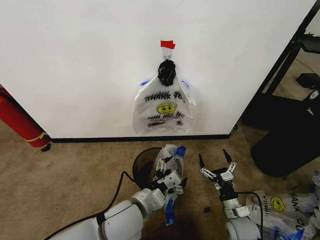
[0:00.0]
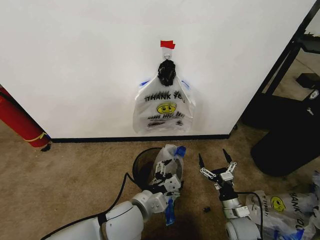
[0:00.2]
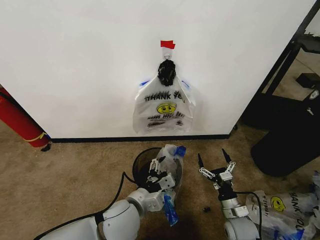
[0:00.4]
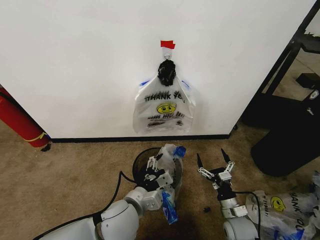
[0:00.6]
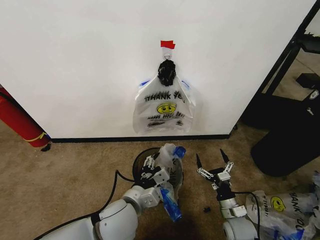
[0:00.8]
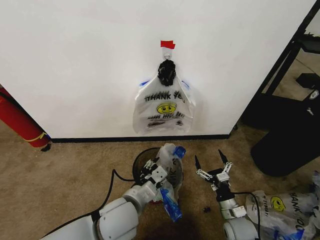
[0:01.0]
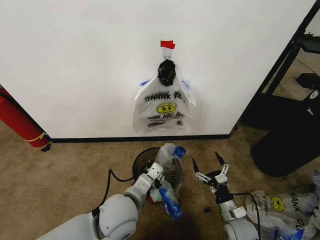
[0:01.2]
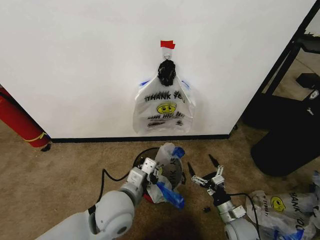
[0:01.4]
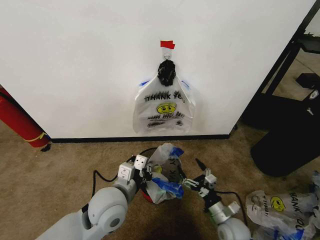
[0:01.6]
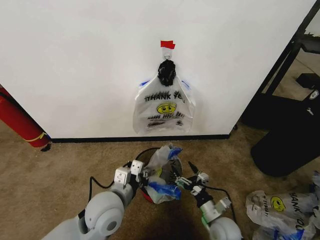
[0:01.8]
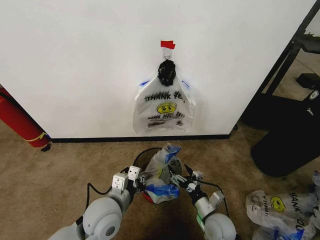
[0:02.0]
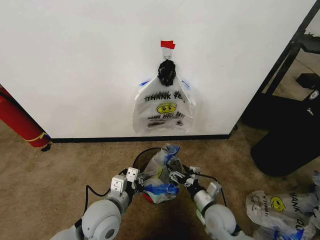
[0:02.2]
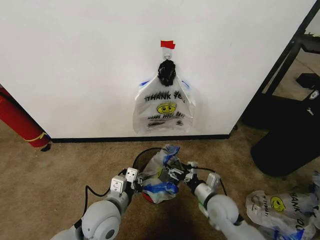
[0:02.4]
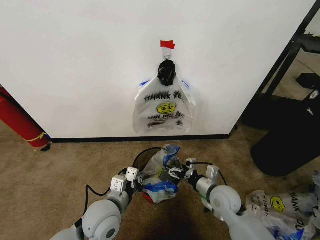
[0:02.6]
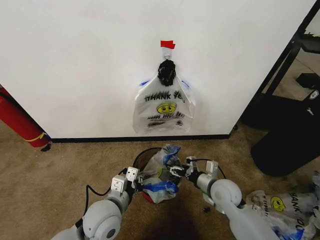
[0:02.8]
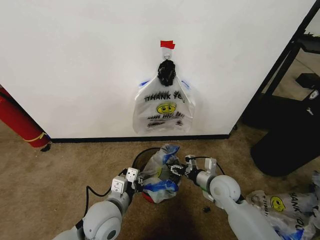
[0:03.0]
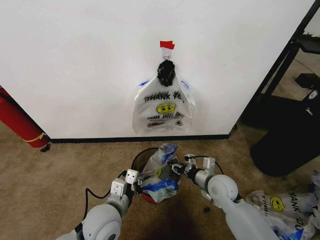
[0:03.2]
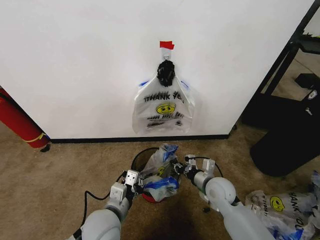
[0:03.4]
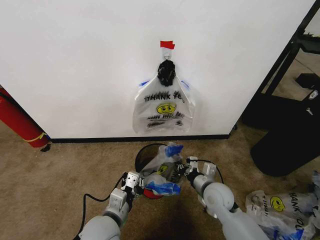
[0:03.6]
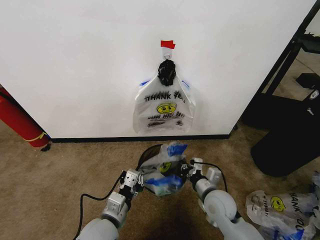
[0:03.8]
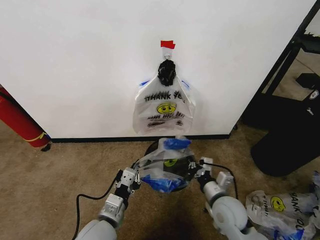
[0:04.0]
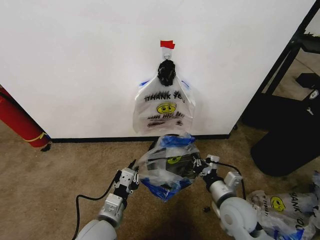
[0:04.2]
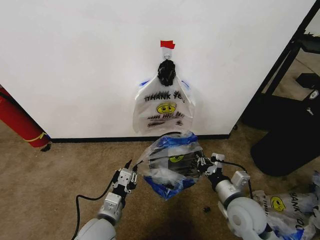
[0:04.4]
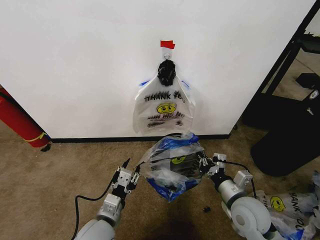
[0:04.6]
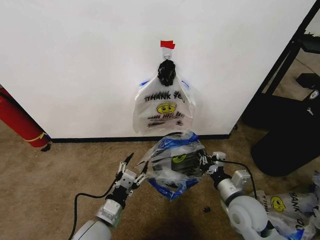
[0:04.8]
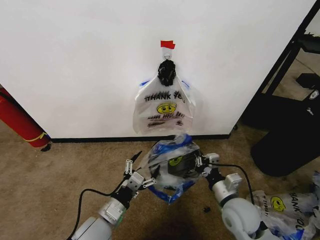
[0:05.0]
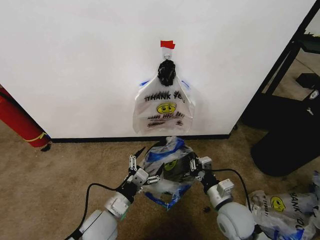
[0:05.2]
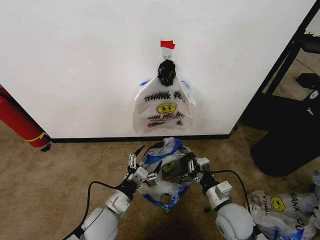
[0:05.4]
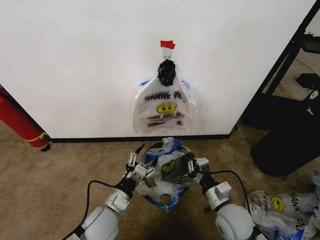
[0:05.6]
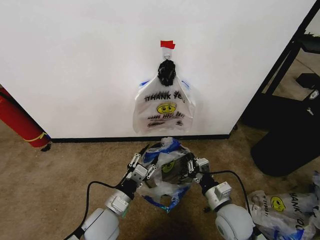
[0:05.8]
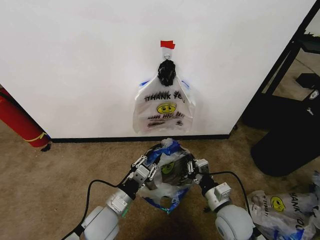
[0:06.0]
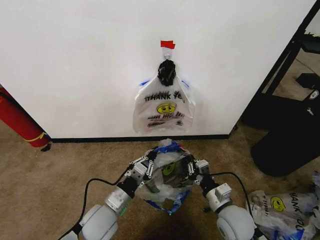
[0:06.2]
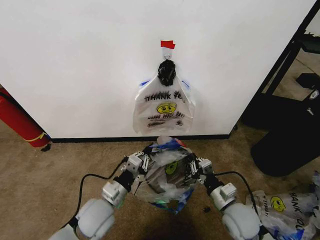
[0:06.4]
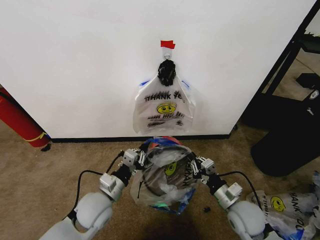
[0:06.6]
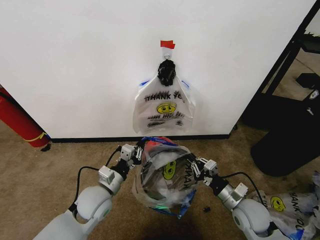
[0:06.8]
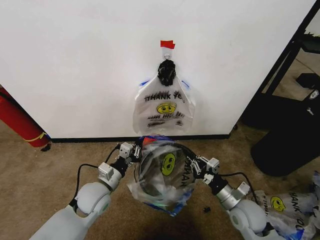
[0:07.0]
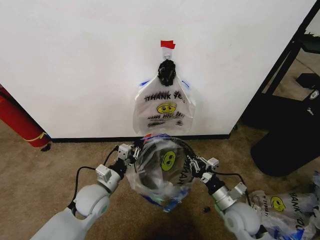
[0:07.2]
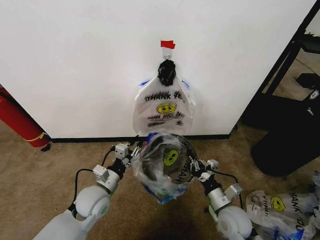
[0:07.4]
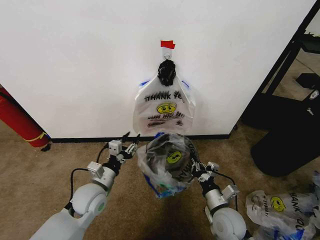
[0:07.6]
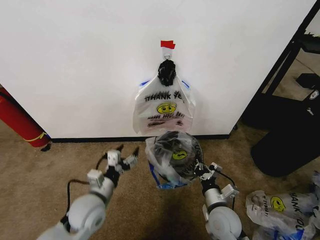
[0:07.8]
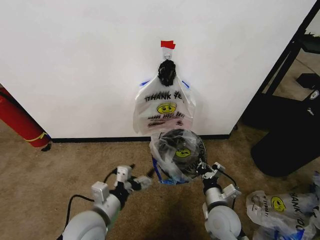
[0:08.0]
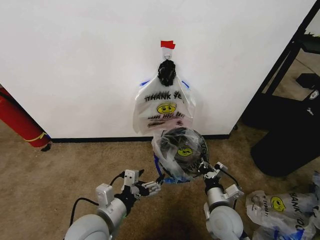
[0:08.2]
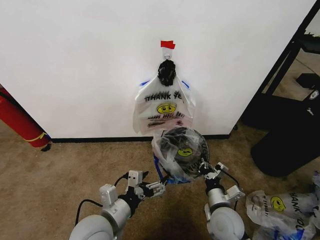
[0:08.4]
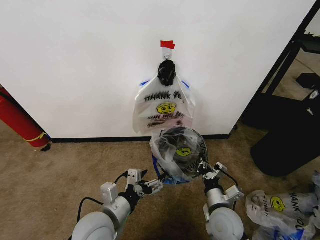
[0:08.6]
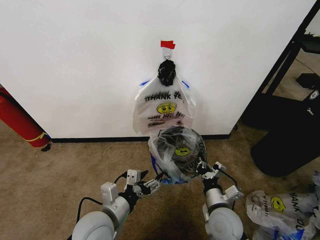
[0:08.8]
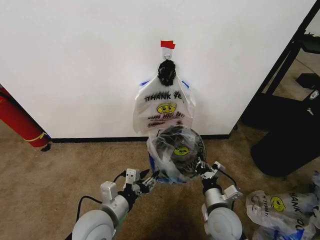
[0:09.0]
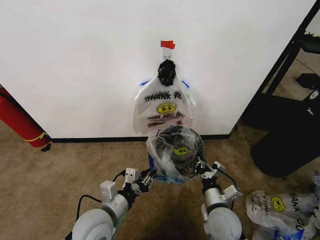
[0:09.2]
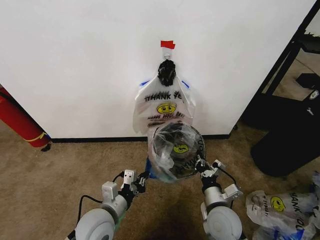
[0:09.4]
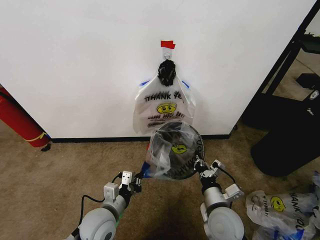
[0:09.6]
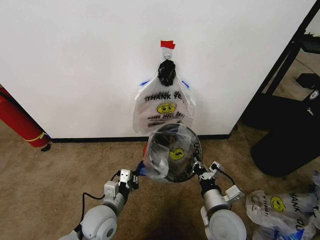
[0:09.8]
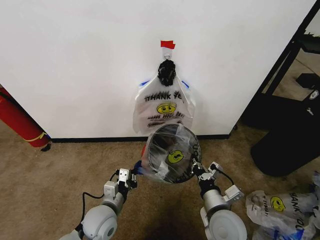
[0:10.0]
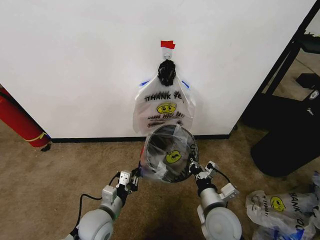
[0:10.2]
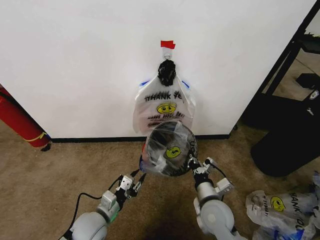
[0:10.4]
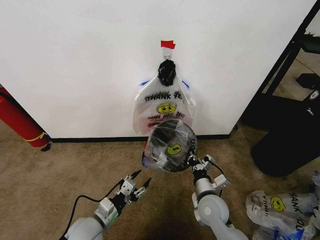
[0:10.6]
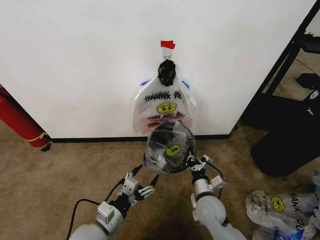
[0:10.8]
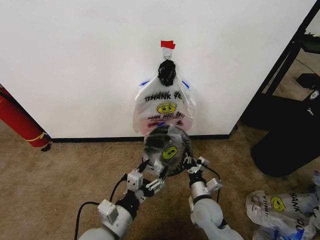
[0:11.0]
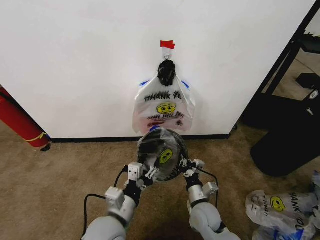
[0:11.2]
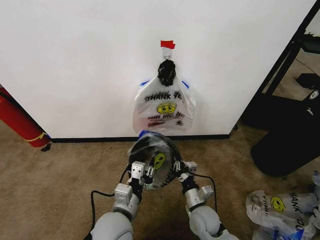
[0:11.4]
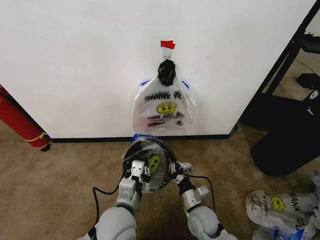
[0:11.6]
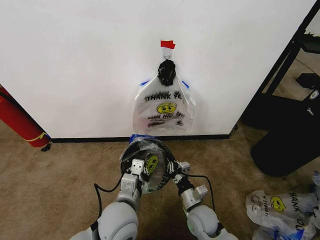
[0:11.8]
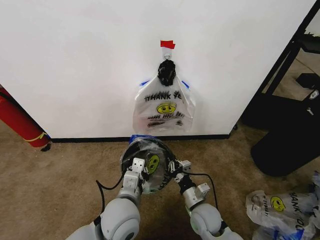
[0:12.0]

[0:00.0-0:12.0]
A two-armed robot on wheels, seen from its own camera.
Task of the whole recording: Pick up the garbage bag from the wall and place it over the trash bin.
0:00.0 to 0:01.6: The left gripper changes place by about 5 cm, and closes.
0:01.6 to 0:03.0: The right gripper travels upward and forward by approximately 15 cm, while the left gripper moves roughly 5 cm.
0:03.0 to 0:04.4: The right gripper travels backward by roughly 10 cm, and closes.
0:04.4 to 0:06.0: The left gripper opens, then closes once more.
0:06.0 to 0:07.6: The left gripper is displaced forward by about 5 cm.
0:07.6 to 0:09.0: The left gripper heads backward and to the right, covering some 10 cm, and opens and closes again.
0:09.0 to 0:10.4: The left gripper shifts about 10 cm downward, and closes and opens again.
0:10.4 to 0:12.0: The right gripper shifts some 5 cm downward. Meanwhile the left gripper shifts approximately 15 cm to the right and upward, and closes its fingers.

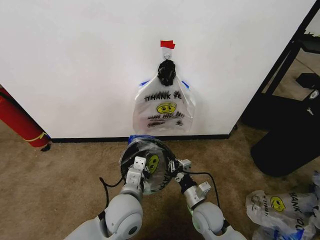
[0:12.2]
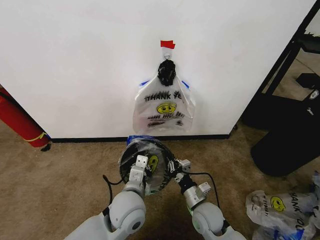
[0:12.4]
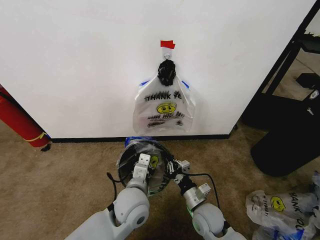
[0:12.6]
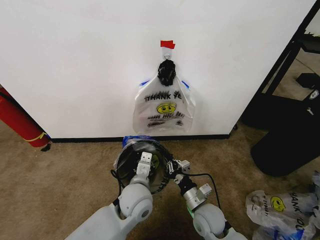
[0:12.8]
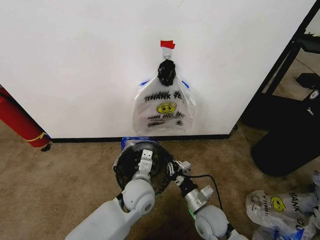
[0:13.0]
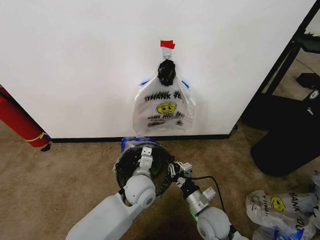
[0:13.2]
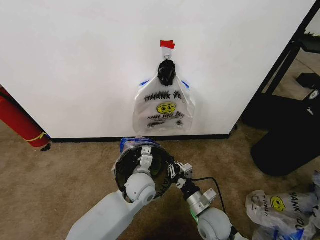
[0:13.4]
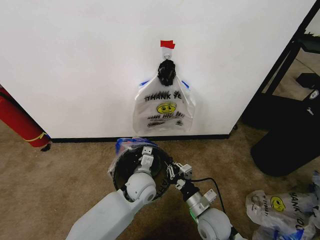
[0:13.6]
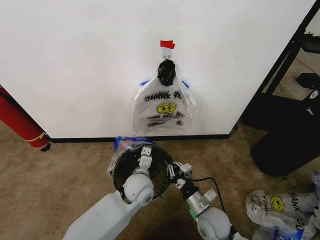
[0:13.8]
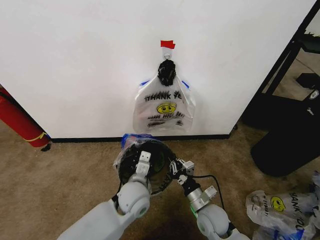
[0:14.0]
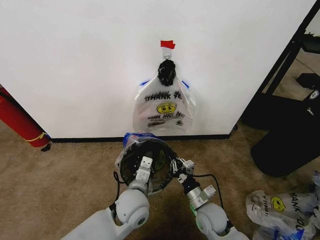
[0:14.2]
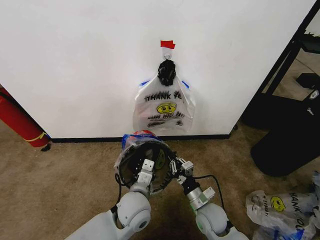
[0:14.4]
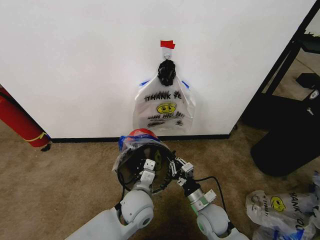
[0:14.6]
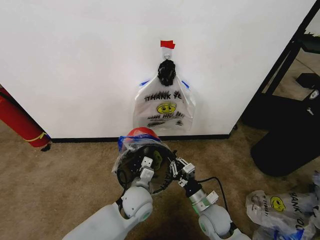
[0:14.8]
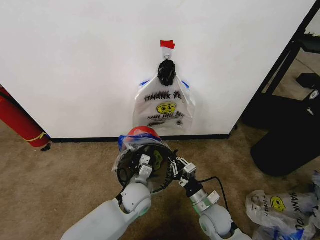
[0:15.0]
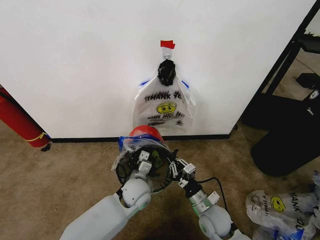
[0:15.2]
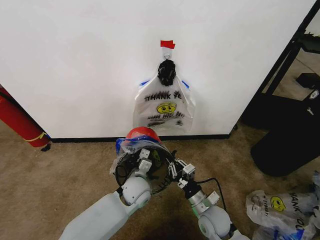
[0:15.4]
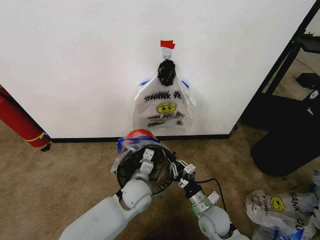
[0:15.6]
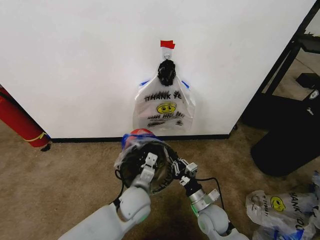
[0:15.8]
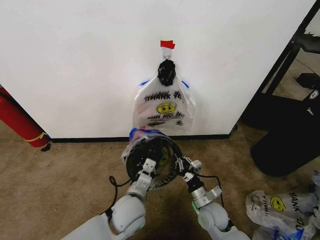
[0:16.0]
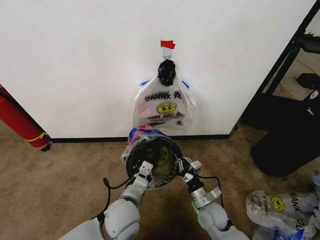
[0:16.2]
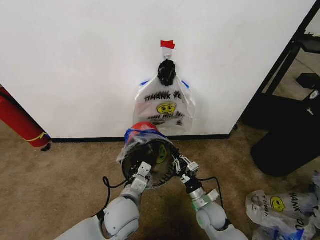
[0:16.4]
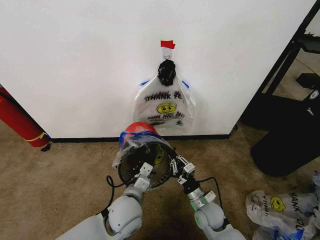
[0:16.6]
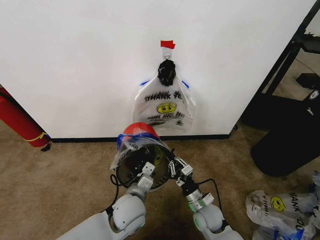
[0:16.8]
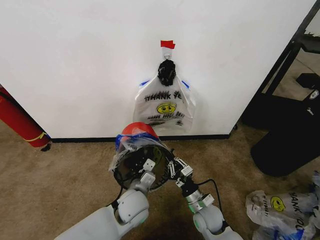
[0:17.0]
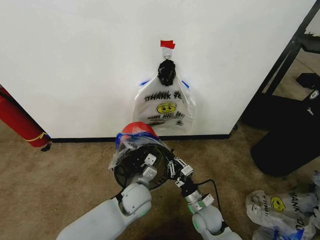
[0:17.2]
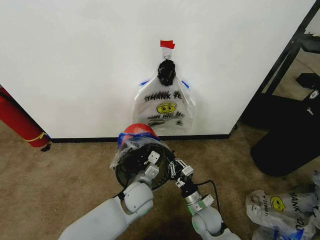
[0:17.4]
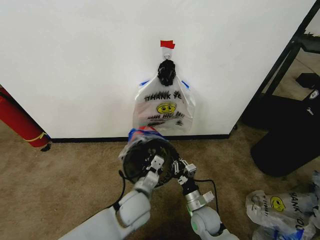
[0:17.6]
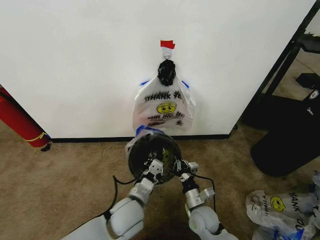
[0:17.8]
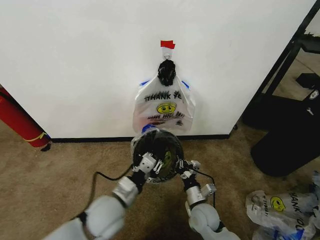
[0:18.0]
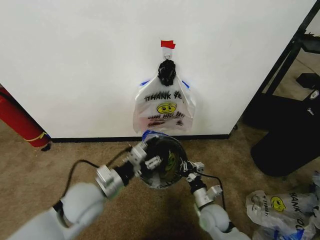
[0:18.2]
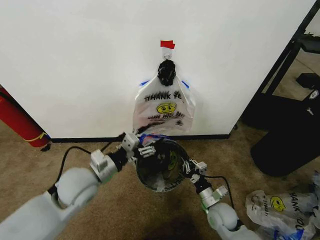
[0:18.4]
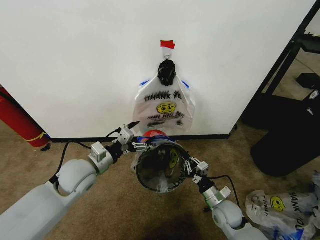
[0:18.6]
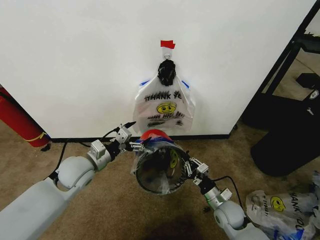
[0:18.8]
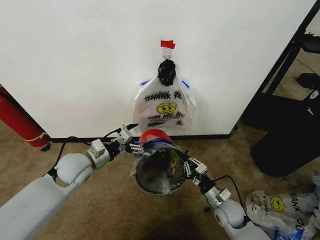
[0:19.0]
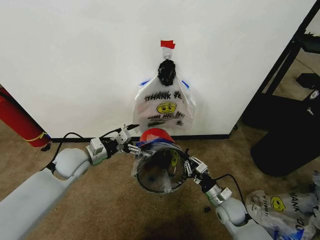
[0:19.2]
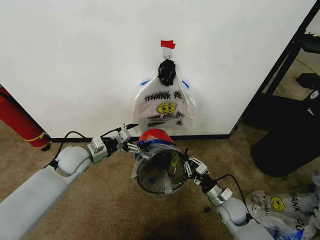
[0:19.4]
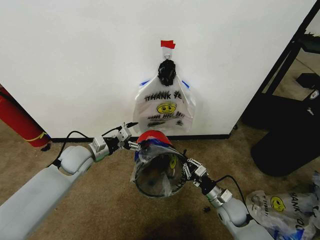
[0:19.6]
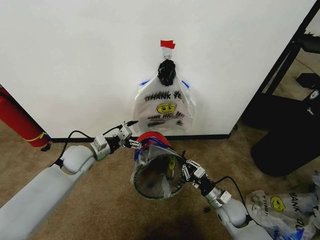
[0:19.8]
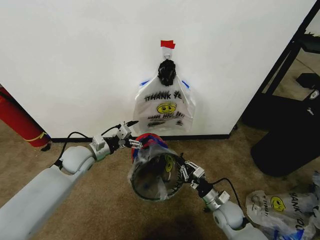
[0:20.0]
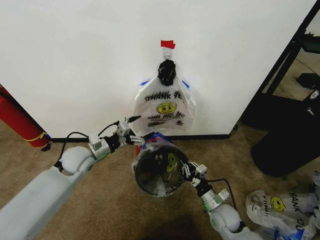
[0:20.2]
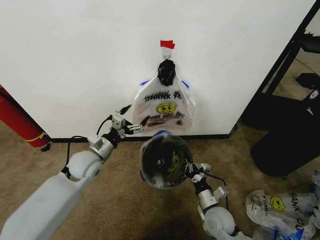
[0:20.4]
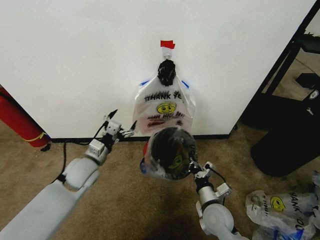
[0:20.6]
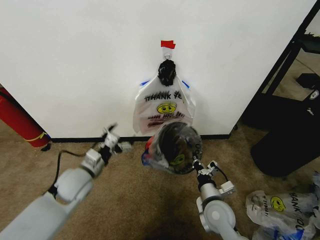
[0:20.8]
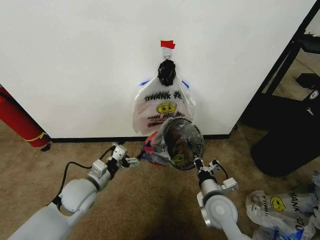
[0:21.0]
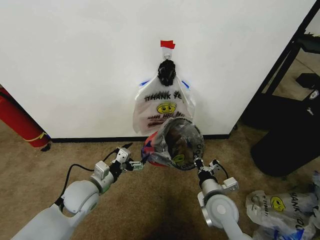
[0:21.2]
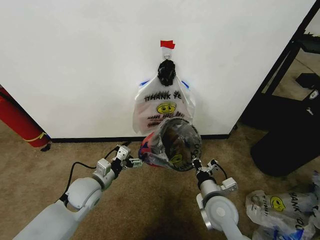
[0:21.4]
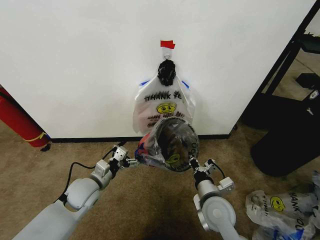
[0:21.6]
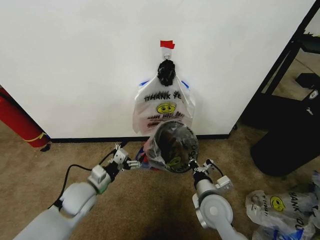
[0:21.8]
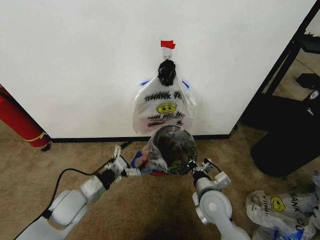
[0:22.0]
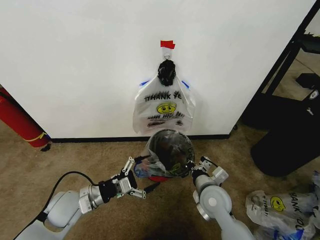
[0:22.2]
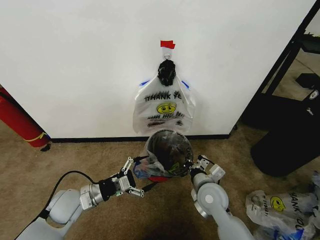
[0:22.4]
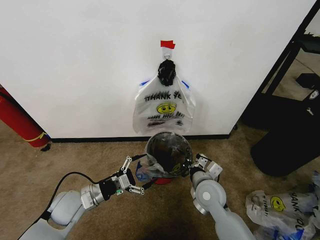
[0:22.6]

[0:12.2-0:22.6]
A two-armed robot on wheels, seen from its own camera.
Task of the whole recording: Pick up the garbage bag from the wall and place it over the trash bin.
0:12.2 to 0:13.6: The left gripper heads forward and downward, covering approximately 10 cm.
0:15.2 to 0:16.6: The left gripper moves backward, roughly 10 cm.
0:16.6 to 0:18.2: The left gripper travels to the left and upward by about 15 cm, and opens its fingers.
0:18.2 to 0:19.6: The right gripper heads to the right, covering about 5 cm. Meanwhile the left gripper moves forward and to the left, approximately 15 cm, and opens up.
0:19.6 to 0:21.2: The left gripper travels backward by some 10 cm. Meanwhile the right gripper goes some 10 cm upward and to the left.
0:21.2 to 0:22.6: The right gripper moves some 5 cm, while the left gripper moves roughly 5 cm.
